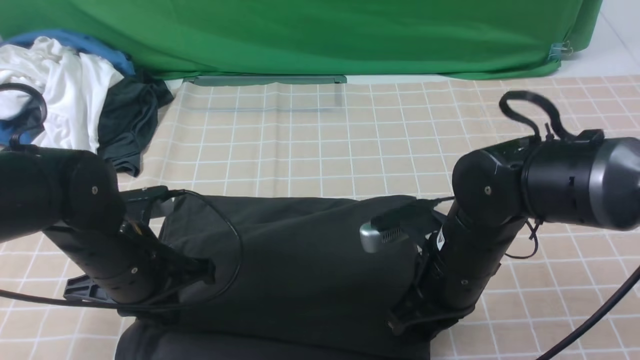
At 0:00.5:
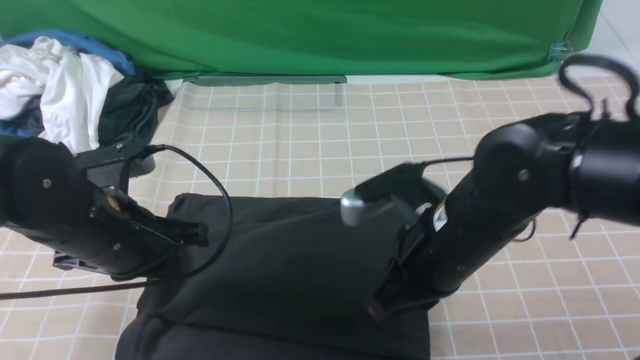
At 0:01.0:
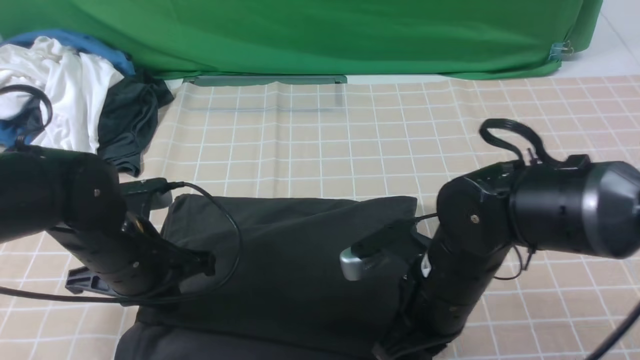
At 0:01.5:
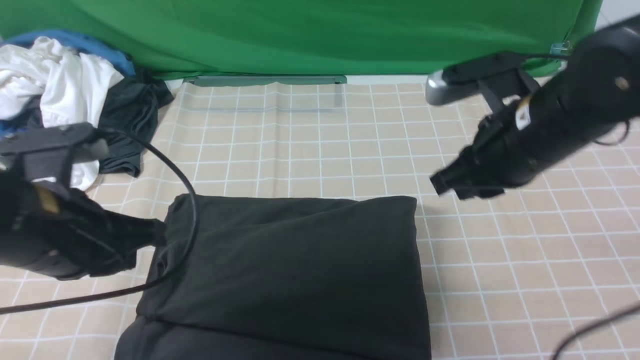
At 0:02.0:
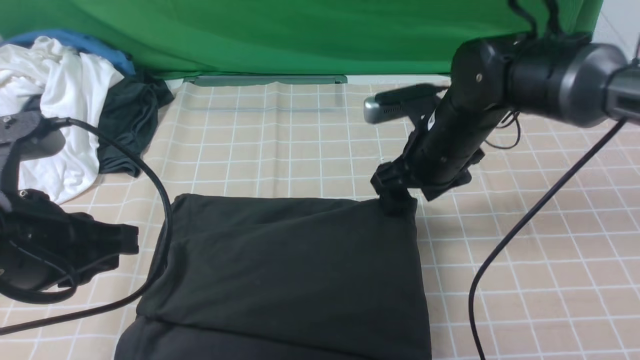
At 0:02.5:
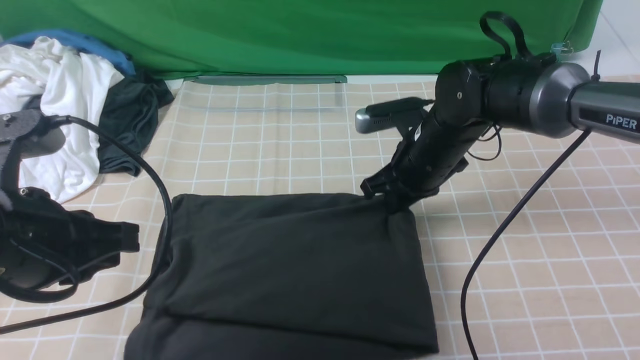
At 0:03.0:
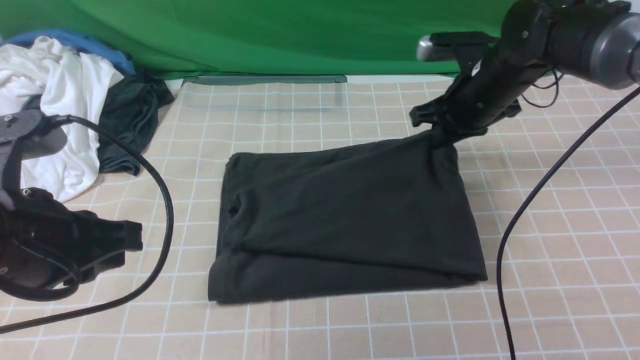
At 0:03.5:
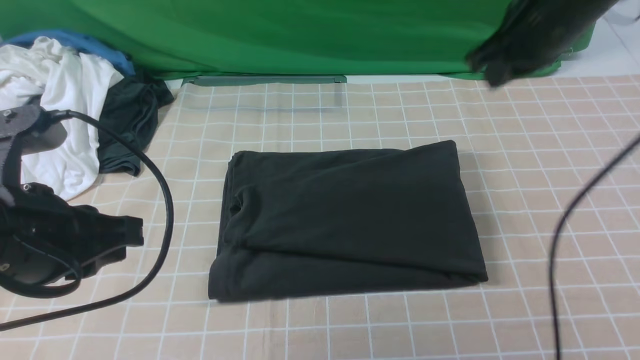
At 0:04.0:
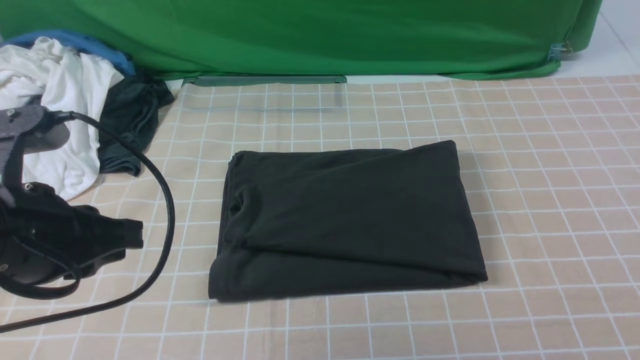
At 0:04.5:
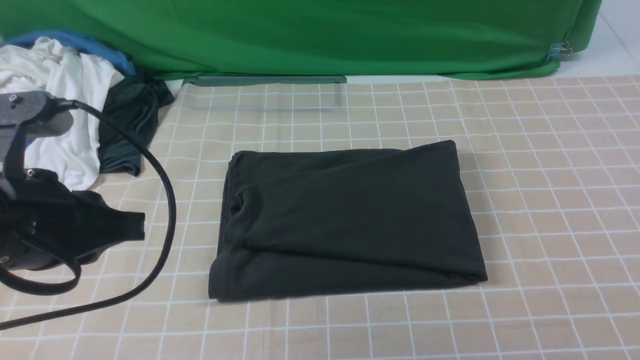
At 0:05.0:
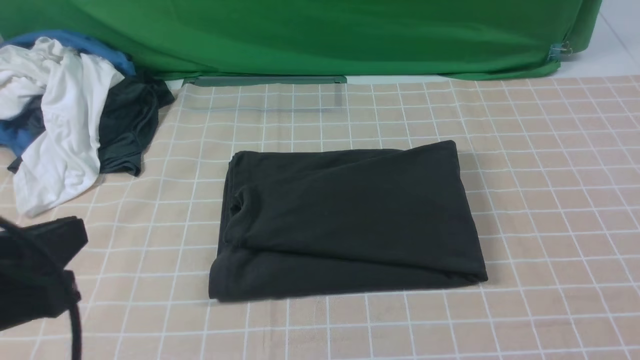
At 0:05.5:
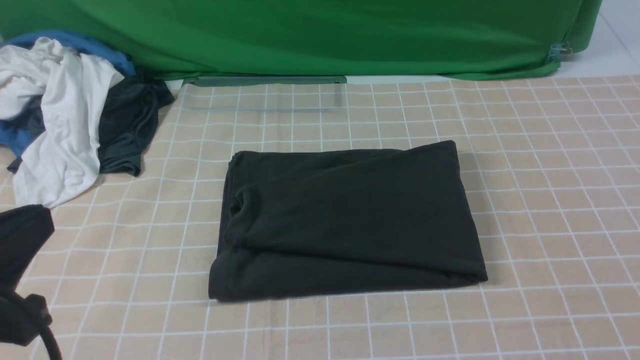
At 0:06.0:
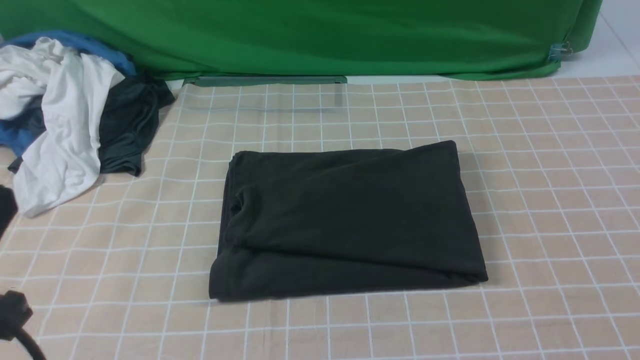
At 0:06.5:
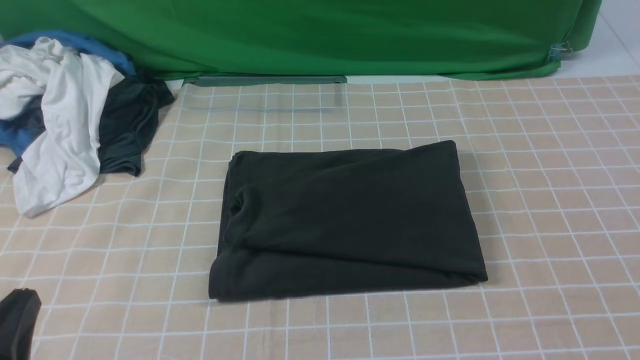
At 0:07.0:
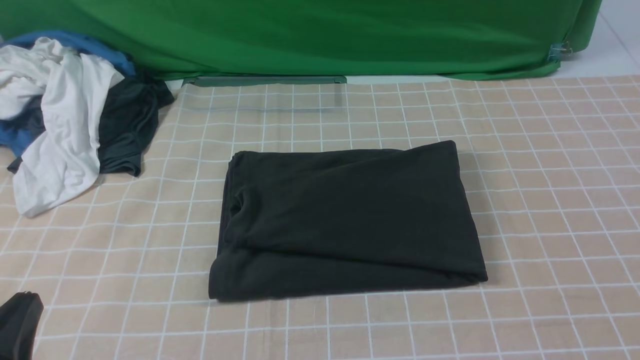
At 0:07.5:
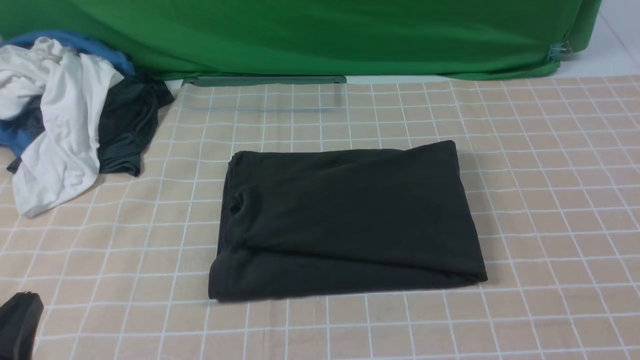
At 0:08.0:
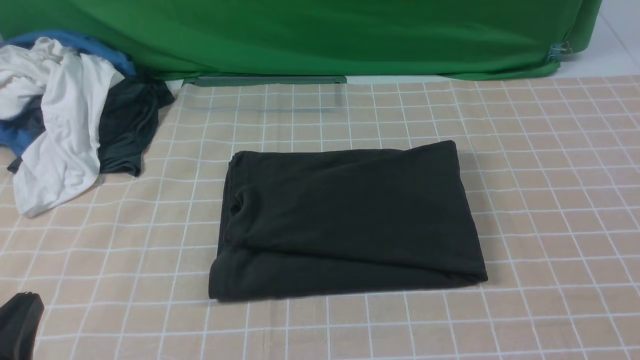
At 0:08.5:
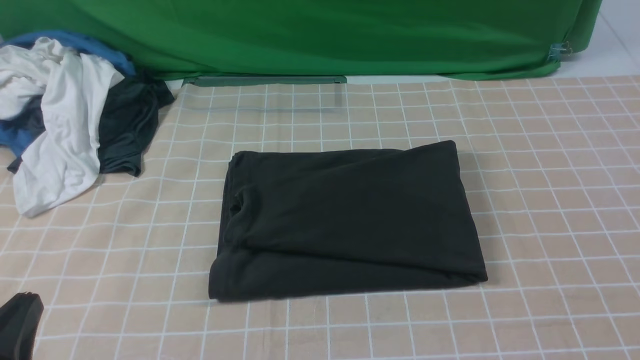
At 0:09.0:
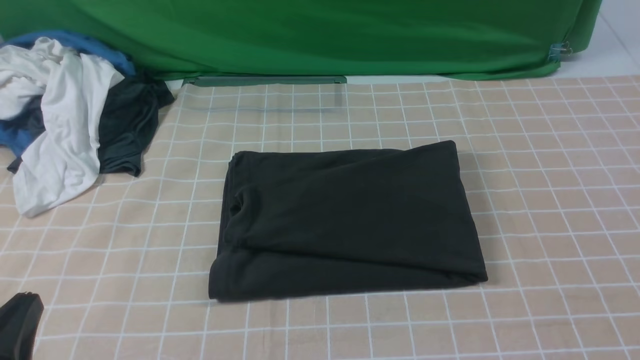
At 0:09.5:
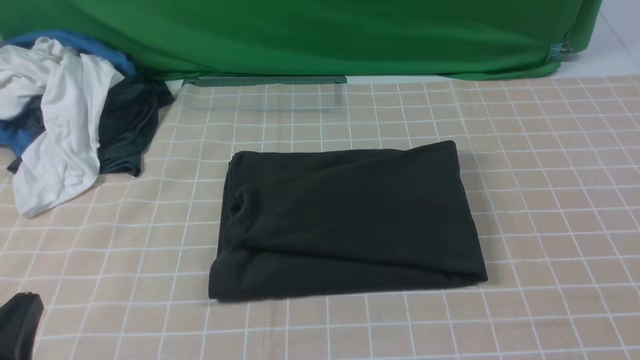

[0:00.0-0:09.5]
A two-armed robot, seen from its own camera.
0:00.0 to 0:02.0: The right gripper shifts about 10 cm forward, and opens its fingers. The left gripper goes about 15 cm upward and backward.
0:02.0 to 0:04.0: The right gripper travels upward, backward and to the right by roughly 35 cm, and closes up.
0:04.0 to 0:05.5: The left gripper goes some 10 cm backward.
0:05.5 to 0:07.5: The left gripper moves downward, some 10 cm.
